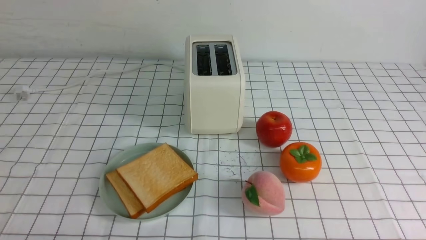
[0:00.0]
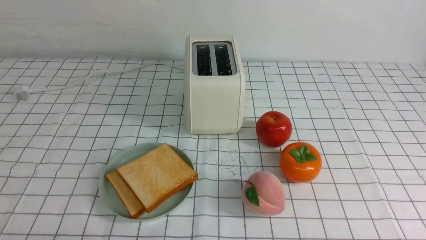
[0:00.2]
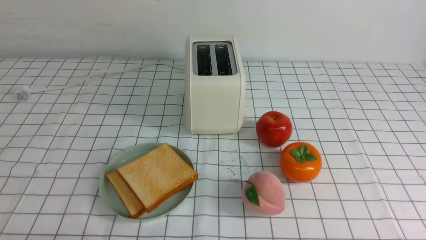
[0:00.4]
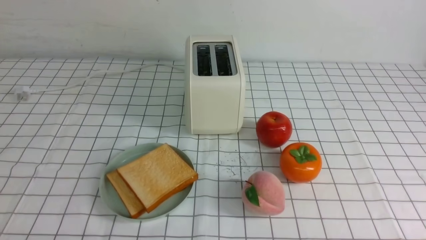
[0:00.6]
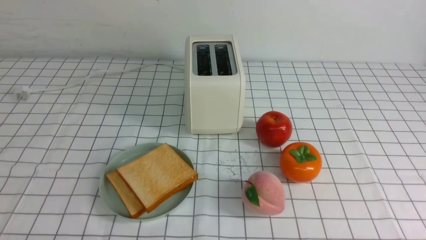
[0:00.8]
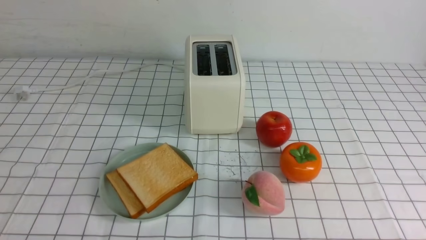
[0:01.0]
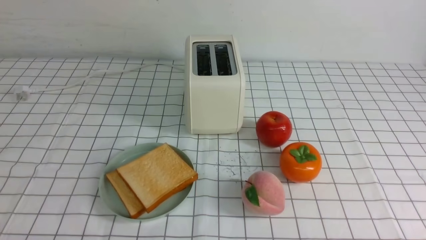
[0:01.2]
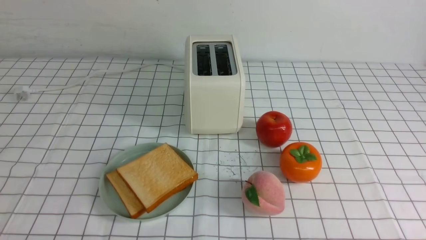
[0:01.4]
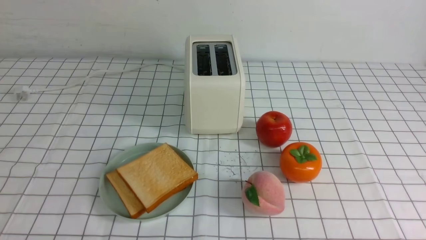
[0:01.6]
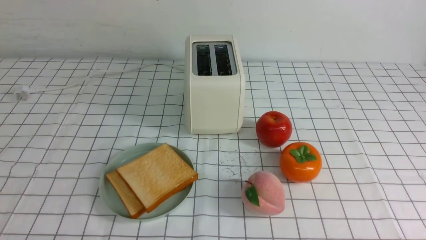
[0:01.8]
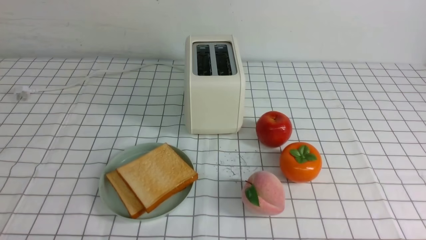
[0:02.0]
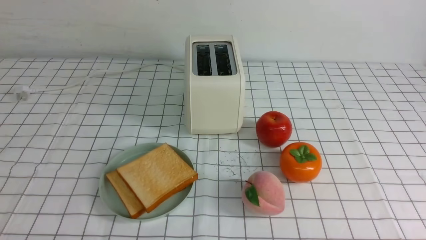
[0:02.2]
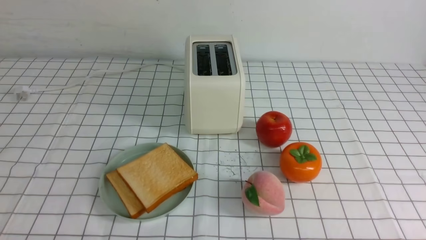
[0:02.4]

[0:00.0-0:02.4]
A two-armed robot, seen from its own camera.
Task of the whole recording: take toasted bread from bread machine on white checkered table place on plate.
0:01.2 to 0:02.4: Neither gripper changes place.

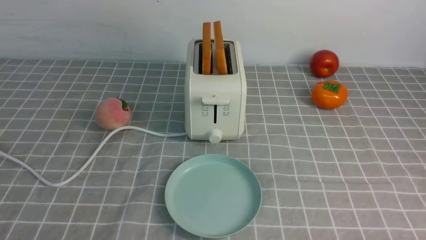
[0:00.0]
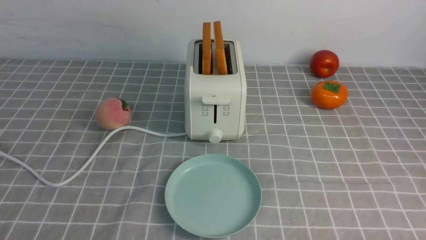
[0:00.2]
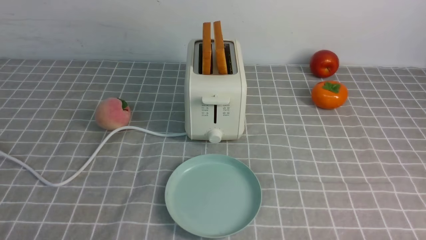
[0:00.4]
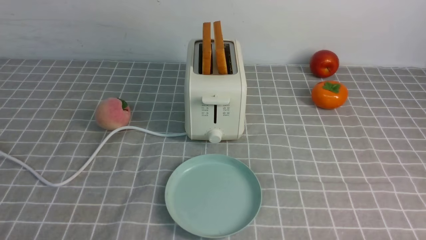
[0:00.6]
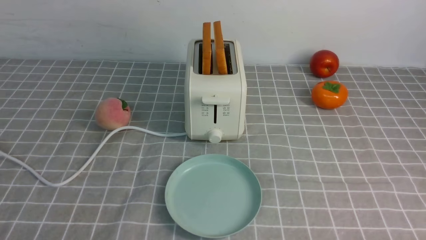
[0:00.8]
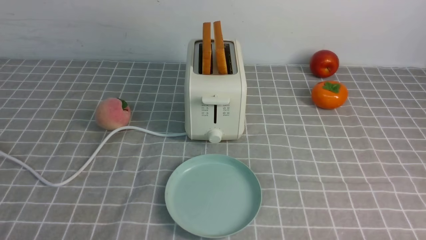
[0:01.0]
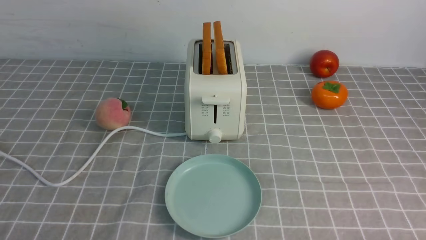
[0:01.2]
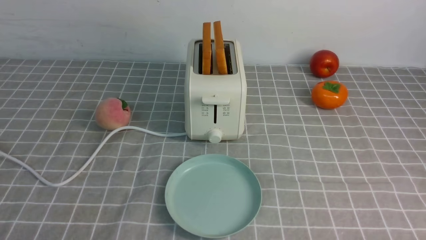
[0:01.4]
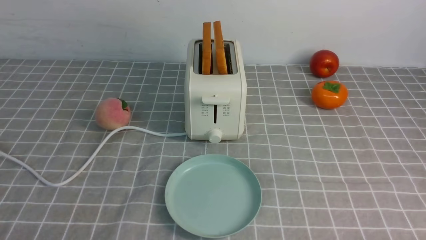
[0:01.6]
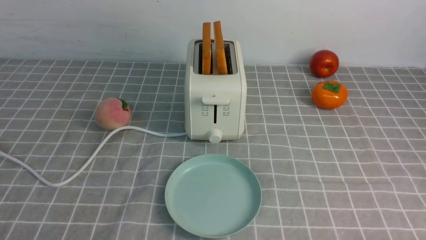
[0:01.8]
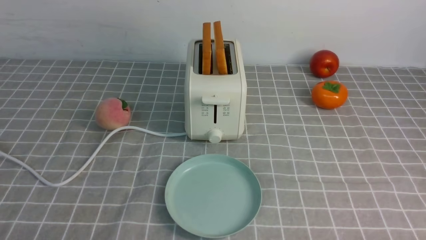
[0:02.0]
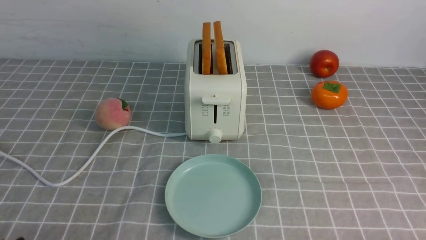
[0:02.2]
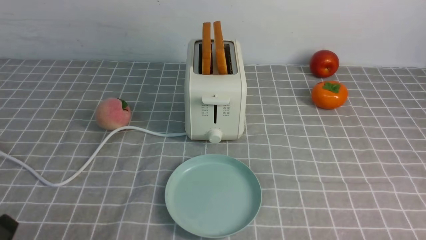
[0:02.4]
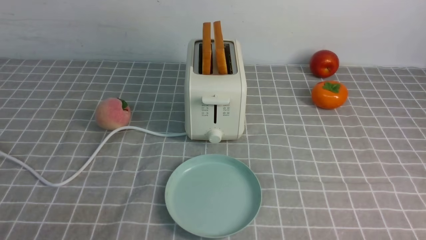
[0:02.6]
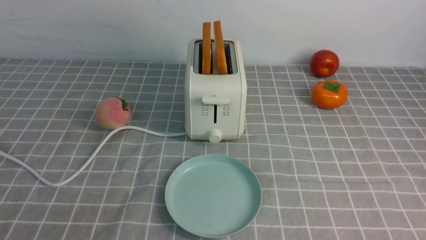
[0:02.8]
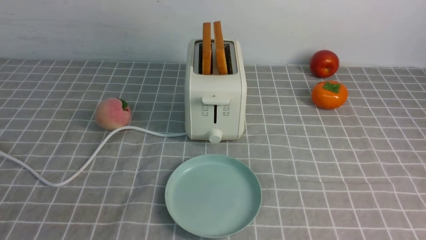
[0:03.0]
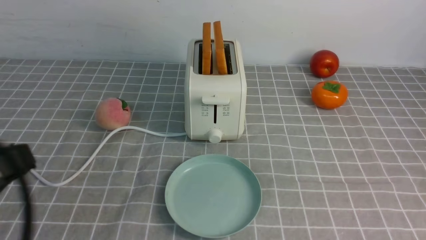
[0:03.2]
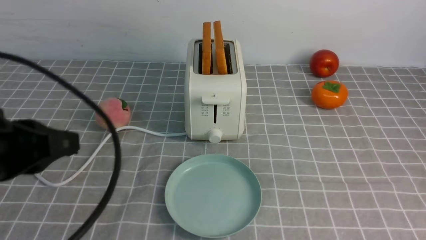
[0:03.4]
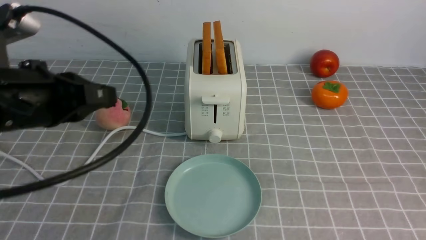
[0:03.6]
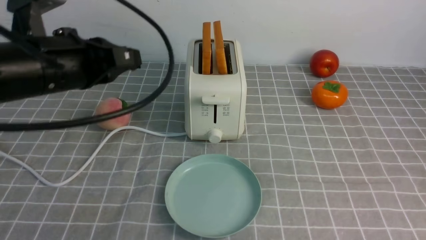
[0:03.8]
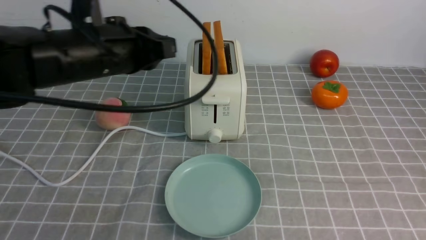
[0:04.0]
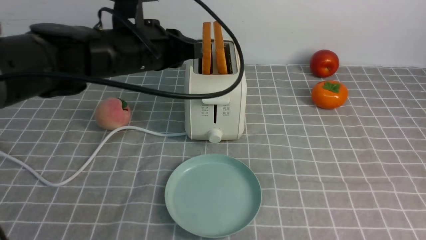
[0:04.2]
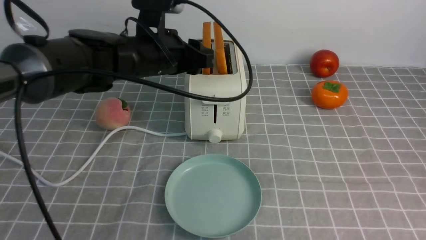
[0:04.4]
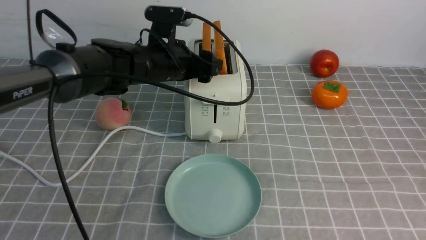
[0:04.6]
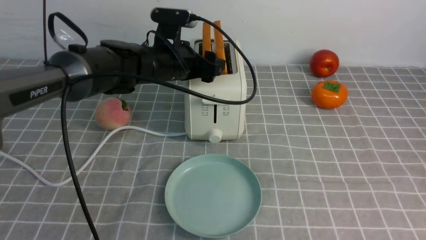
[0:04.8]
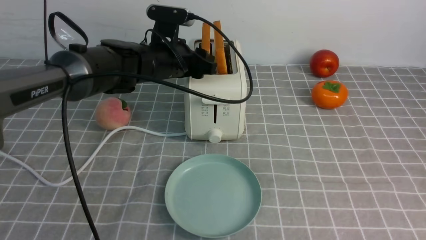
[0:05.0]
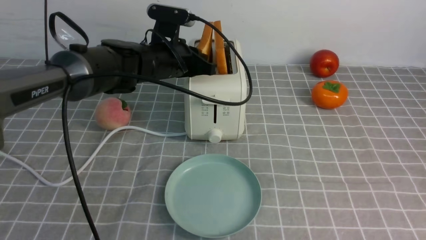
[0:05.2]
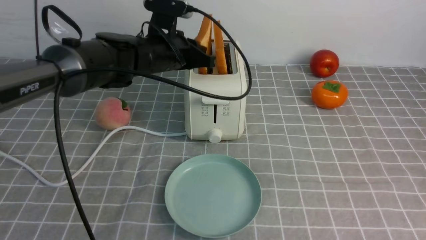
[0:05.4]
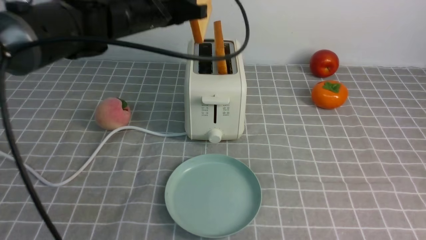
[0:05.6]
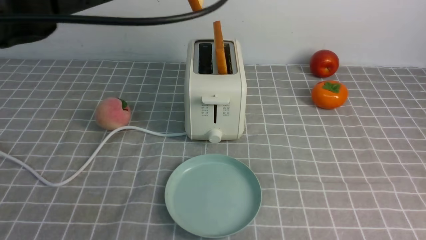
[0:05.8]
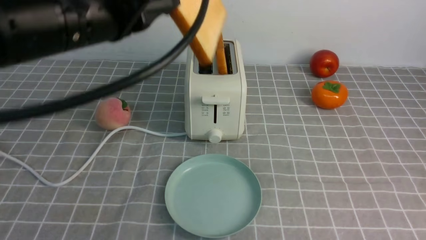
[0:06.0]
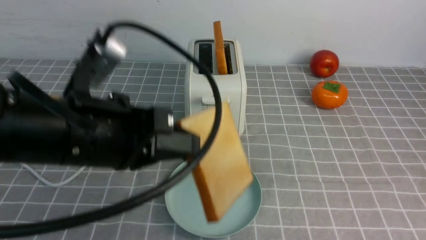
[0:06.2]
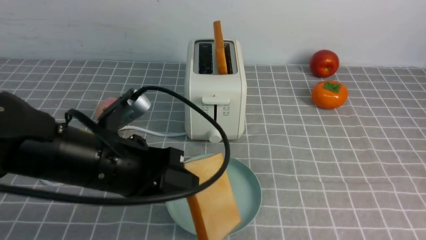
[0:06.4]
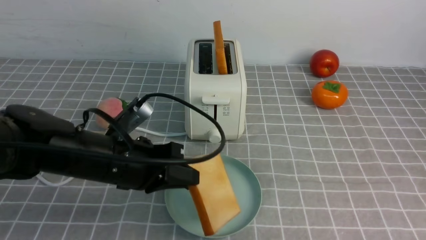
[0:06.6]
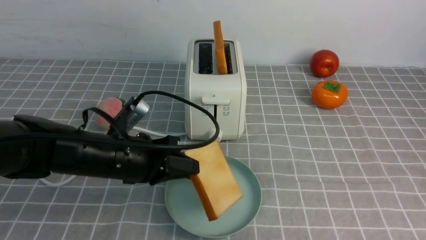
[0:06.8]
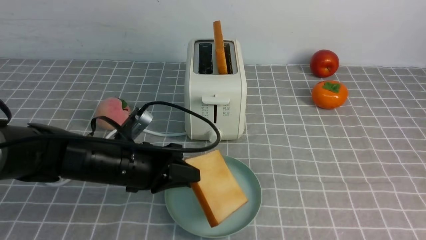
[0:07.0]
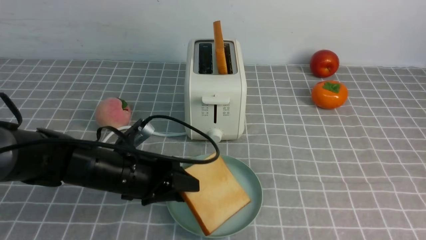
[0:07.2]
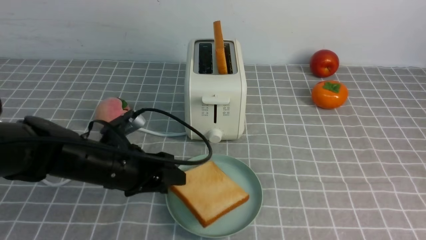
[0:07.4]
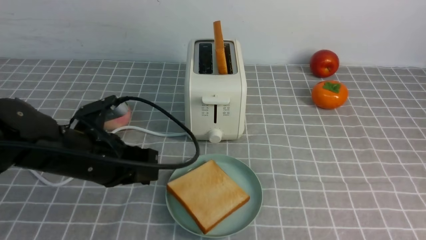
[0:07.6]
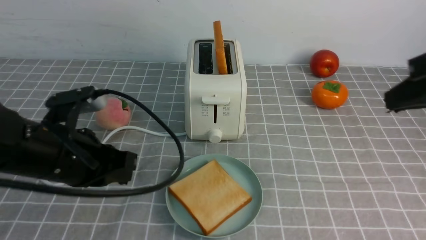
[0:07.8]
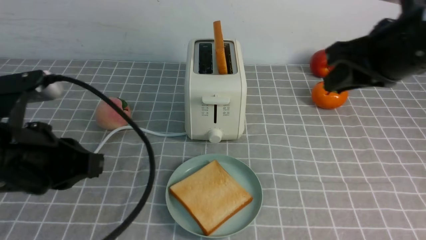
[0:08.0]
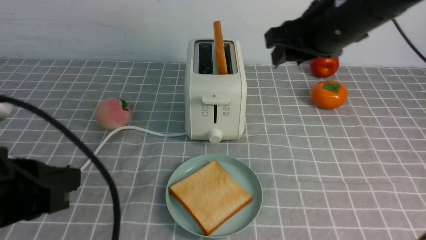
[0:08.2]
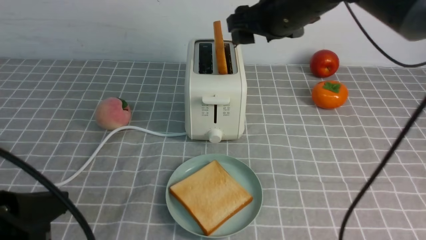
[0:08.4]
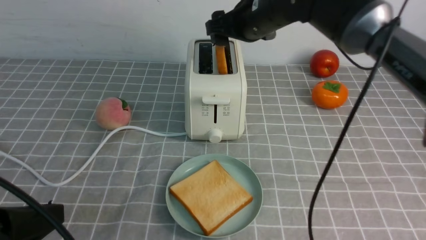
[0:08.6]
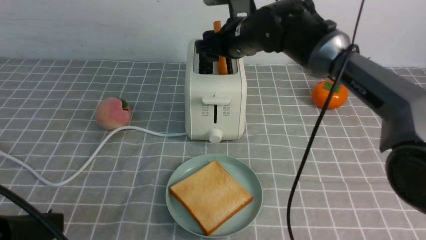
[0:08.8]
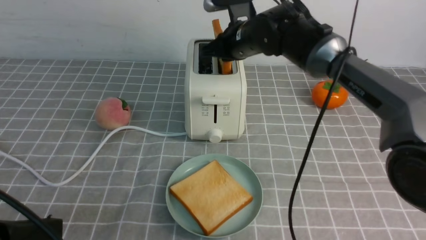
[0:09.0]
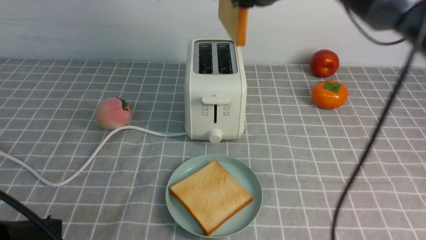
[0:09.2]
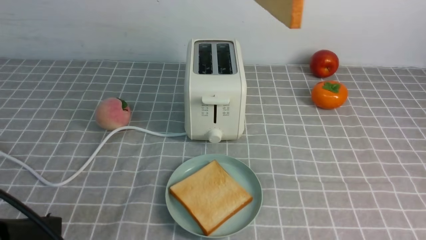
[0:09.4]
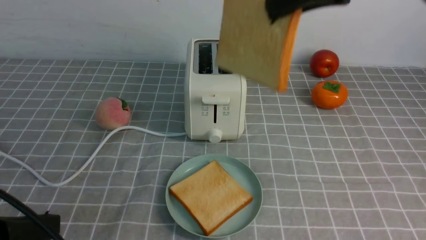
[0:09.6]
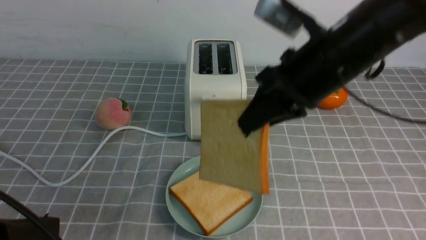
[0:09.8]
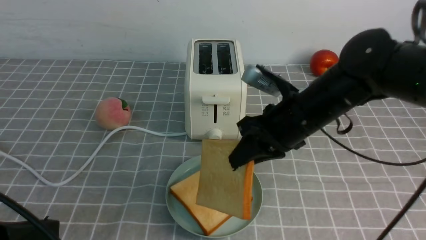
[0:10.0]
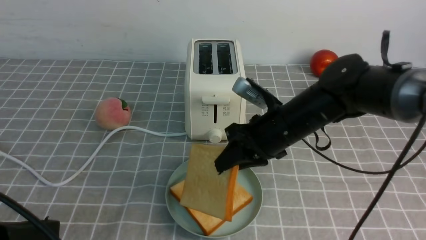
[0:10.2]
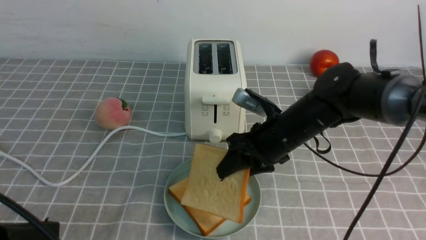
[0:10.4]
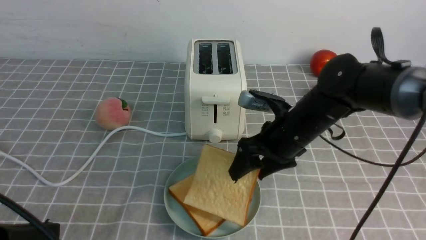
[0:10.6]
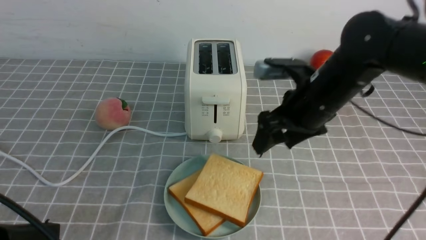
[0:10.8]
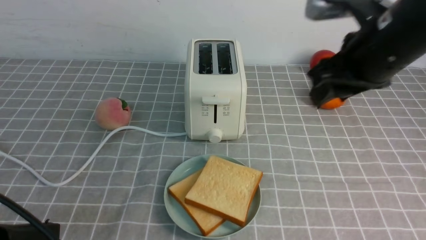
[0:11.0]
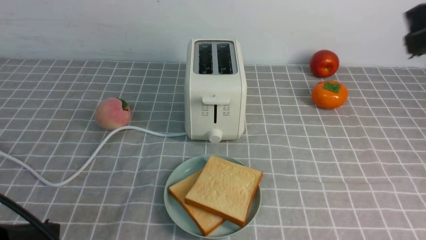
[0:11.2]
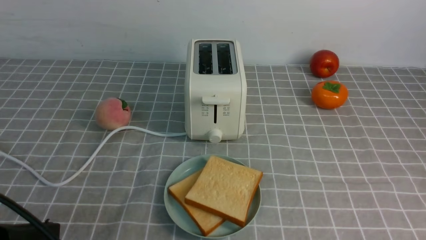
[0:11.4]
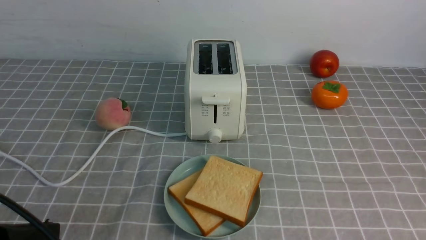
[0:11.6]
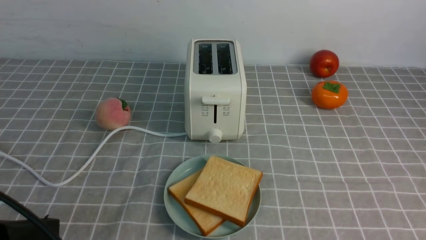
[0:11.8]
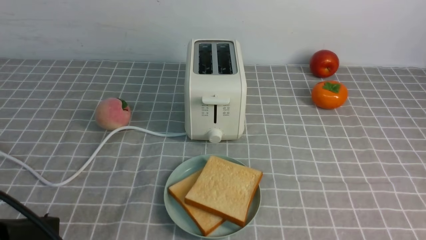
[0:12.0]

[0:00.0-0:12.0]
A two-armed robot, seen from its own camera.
Task of the whole recording: take toasted bread from bread machine on grey coffee table place on plate.
Step, 0:00.0 to 0:05.6: use the left arm to take out a slice of bread.
Step, 0:05.8 to 0:07.6: use the left arm to put a slice of bread into the empty plate.
Step, 0:07.8 to 0:09.2: use the right arm to take out a slice of bread.
Step, 0:09.4 to 0:10.8: use the right arm to put a slice of bread into the plate.
0:00.0 to 0:01.6: Neither gripper changes place.
0:03.0 to 0:04.4: The right gripper travels forward by about 5 cm. Meanwhile the left gripper travels forward and to the right by some 35 cm, and opens its fingers.
0:04.4 to 0:06.0: The left gripper heads backward and upward, covering some 15 cm, and closes.
0:06.0 to 0:07.6: The left gripper goes roughly 15 cm downward, while the right gripper goes some 10 cm forward and upward.
0:07.6 to 0:09.0: The left gripper heads backward, covering roughly 20 cm, while the right gripper is displaced forward and to the left by some 35 cm, and opens, then closes once more.
0:09.0 to 0:10.4: The right gripper goes about 15 cm downward and backward.
0:10.4 to 0:12.0: The right gripper is displaced backward and to the right by approximately 35 cm, and closes.

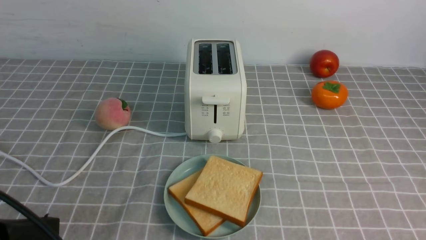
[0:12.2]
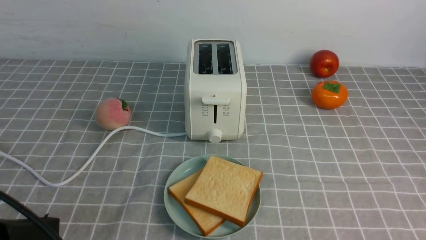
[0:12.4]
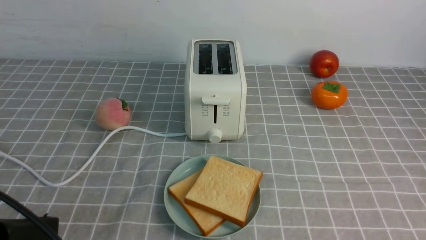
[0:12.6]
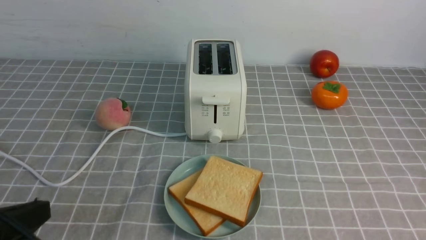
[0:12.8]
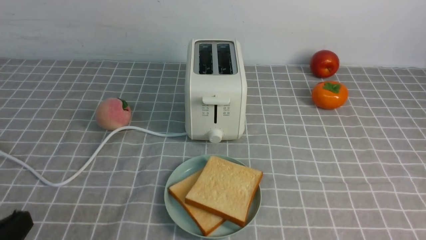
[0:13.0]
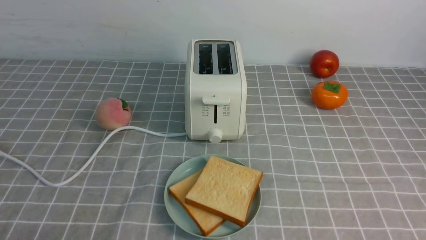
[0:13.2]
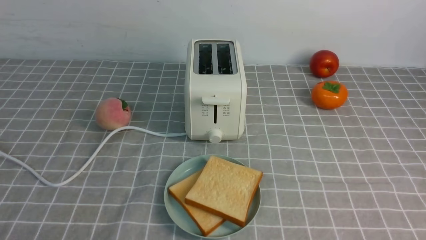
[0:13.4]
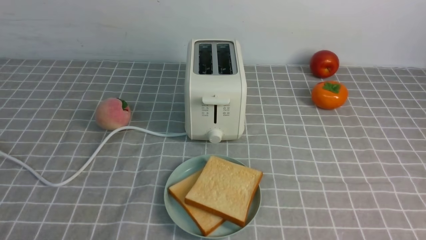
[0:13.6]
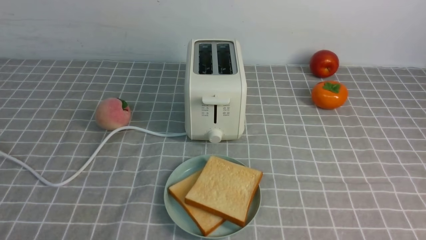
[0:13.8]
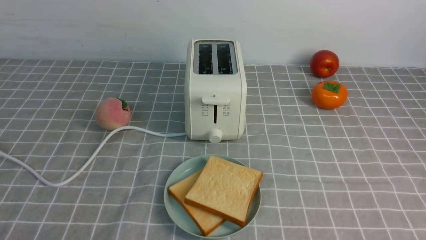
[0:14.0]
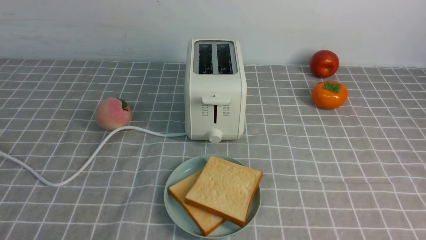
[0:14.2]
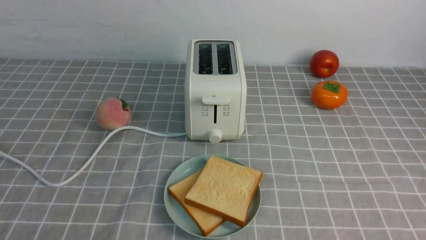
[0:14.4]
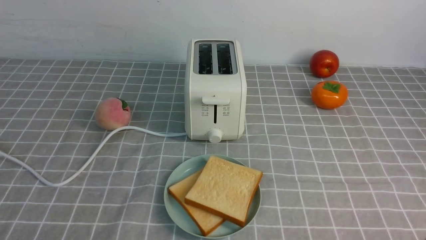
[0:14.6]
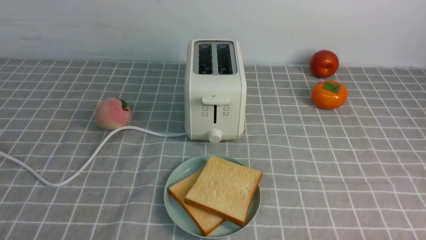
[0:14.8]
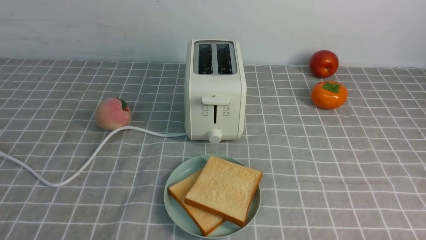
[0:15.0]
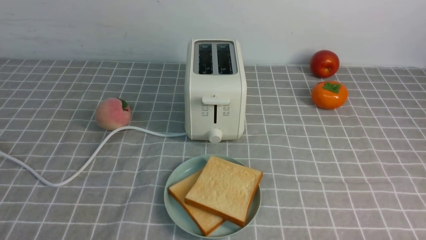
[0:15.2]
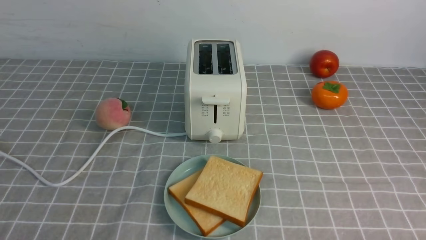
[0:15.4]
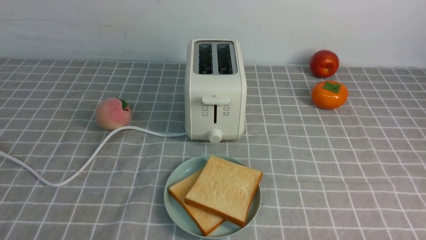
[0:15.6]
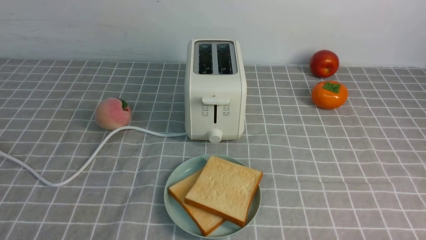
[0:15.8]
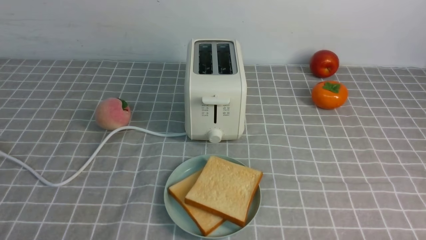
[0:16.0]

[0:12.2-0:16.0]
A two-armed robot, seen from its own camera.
Task of the whole recording: take toasted bread from bread machine on grey coffee table place on plate.
0:12.2 to 0:13.4: The left gripper shifts about 10 cm downward.
